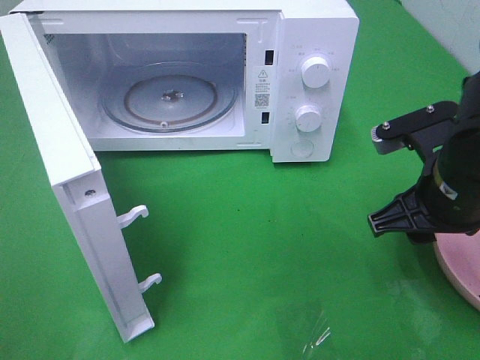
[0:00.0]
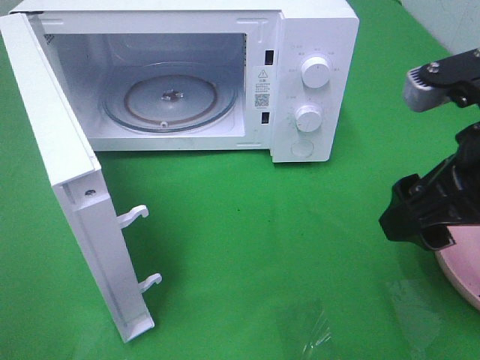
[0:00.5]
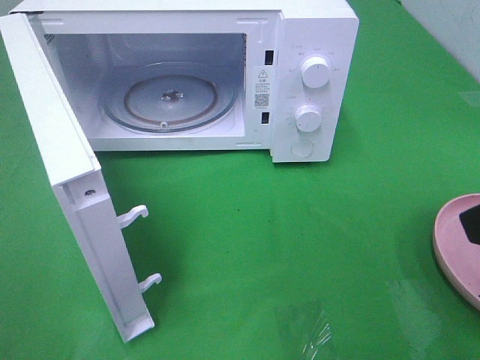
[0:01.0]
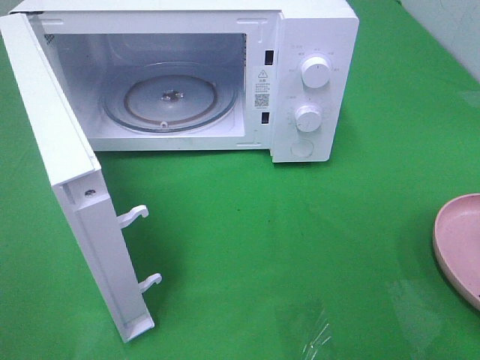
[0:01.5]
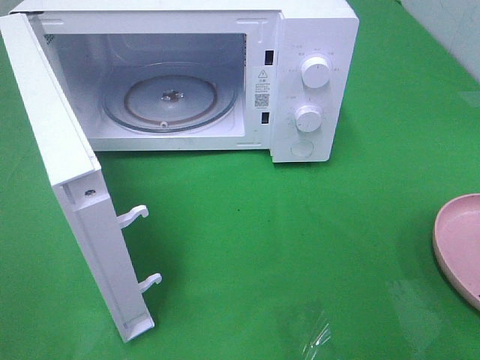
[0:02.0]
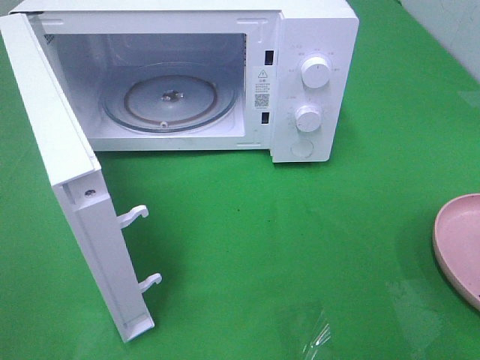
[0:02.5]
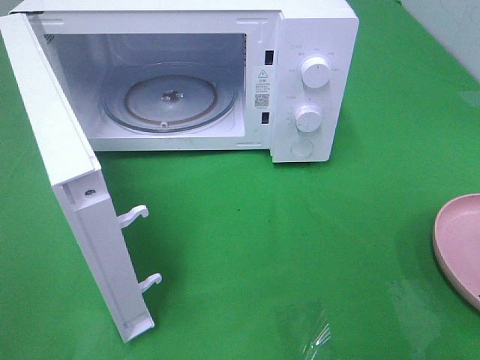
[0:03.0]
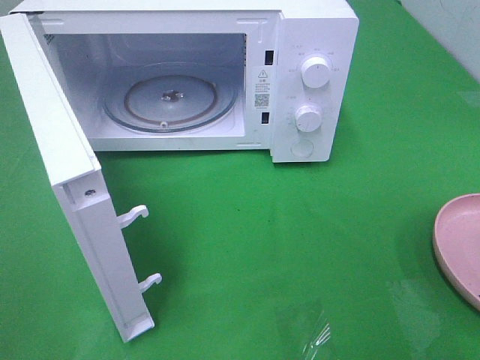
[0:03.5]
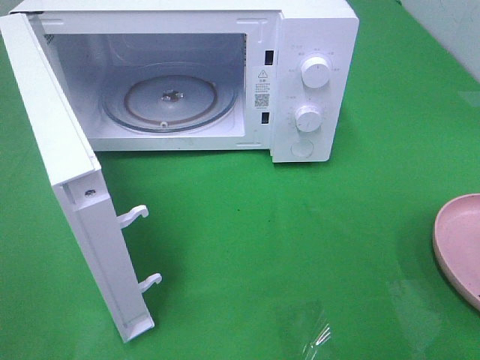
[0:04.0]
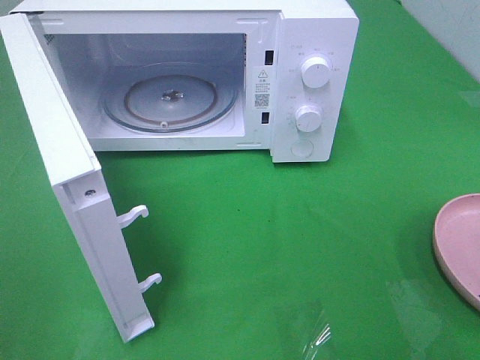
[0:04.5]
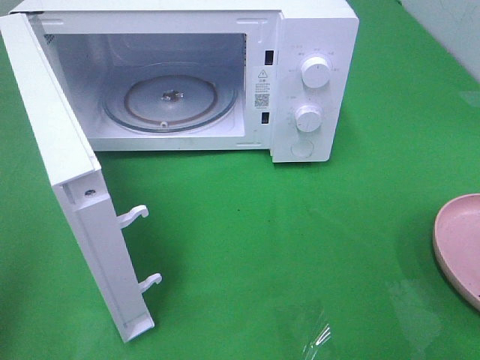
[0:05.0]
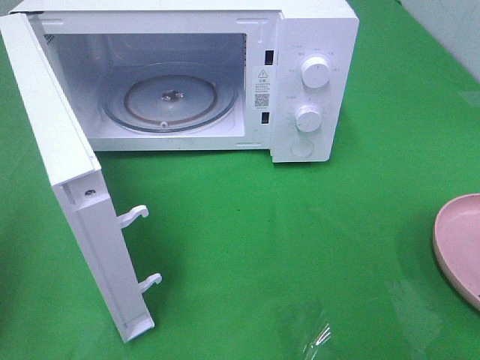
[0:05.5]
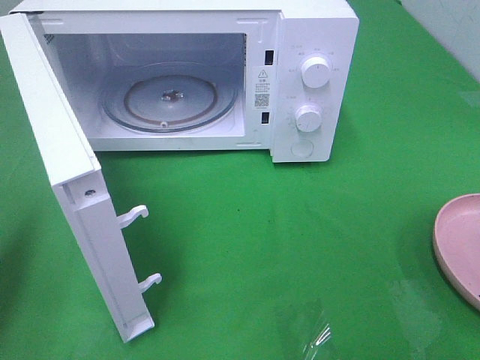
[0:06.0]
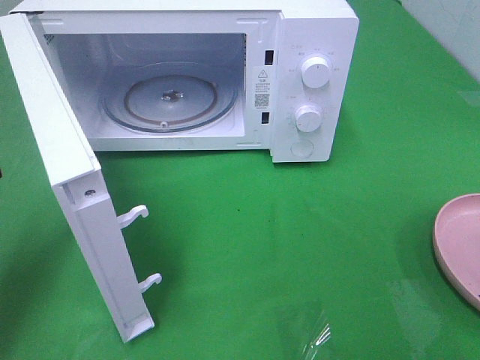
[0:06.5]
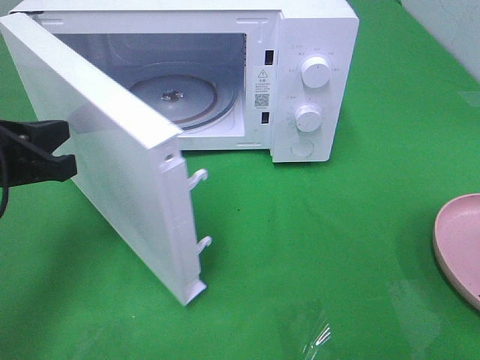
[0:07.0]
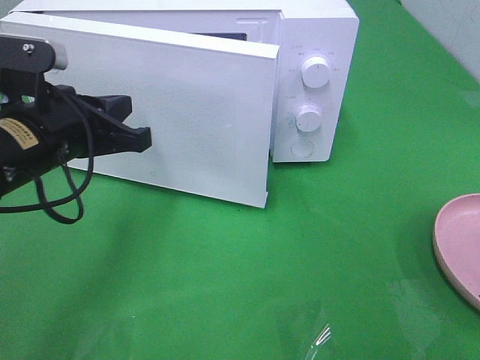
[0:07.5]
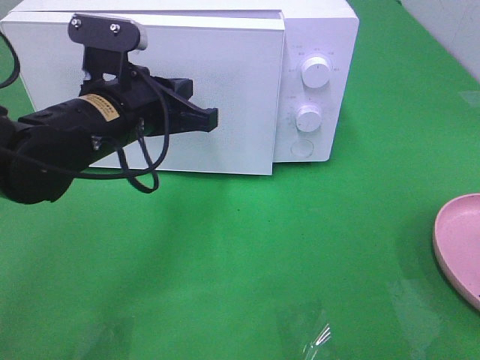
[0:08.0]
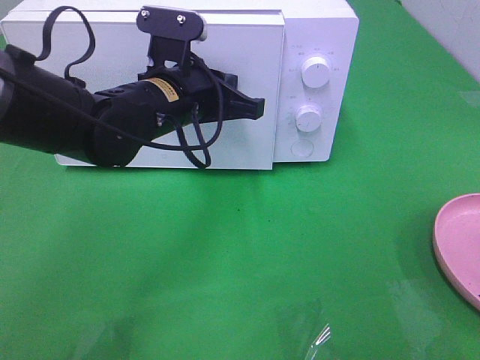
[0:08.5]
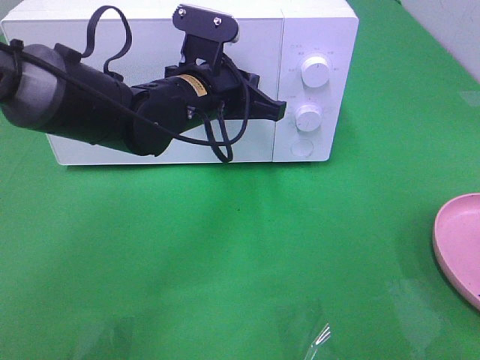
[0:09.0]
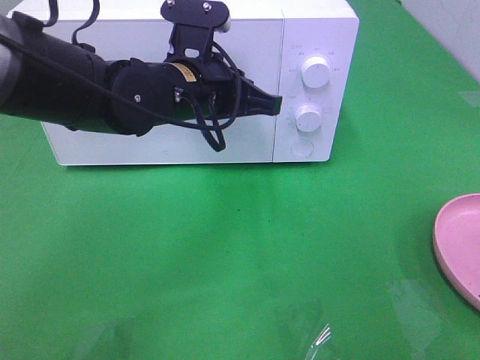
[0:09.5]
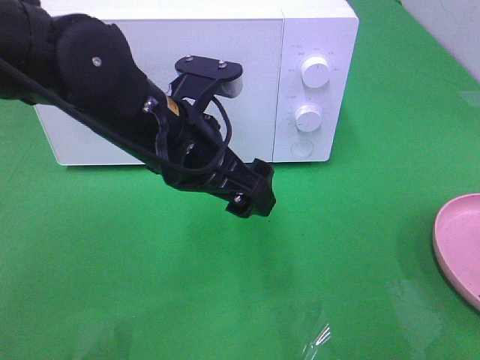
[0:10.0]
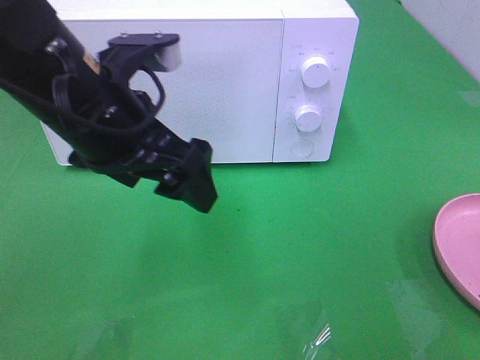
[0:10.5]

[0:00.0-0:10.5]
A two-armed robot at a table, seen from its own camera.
Task of the whole recording: Heat the burger.
Step, 0:00.5 to 0:09.5: Left hand: close the microwave door.
0:00.0 to 0:02.0: The right gripper is displaced backward, upward and to the right by roughly 25 cm.
0:04.0 to 0:06.5: The left gripper travels forward and downward by approximately 25 cm, and closes.
0:06.5 to 0:08.5: The left gripper heads to the right and forward, covering about 25 cm.
0:08.5 to 0:10.5: The left gripper heads backward, upward and to the left, covering about 10 cm, and opens.

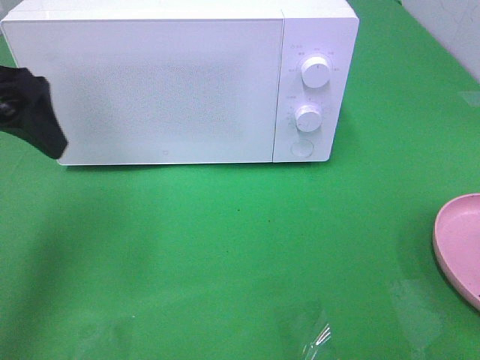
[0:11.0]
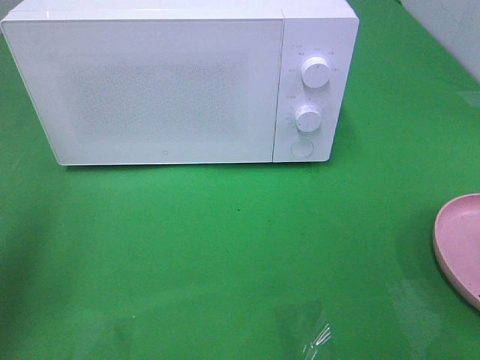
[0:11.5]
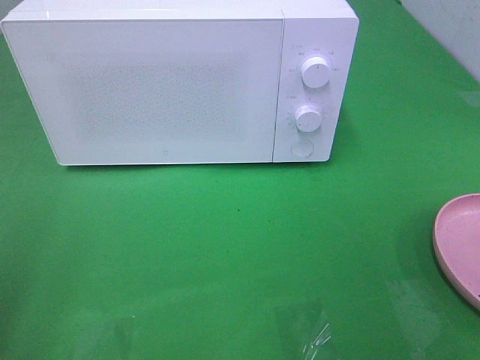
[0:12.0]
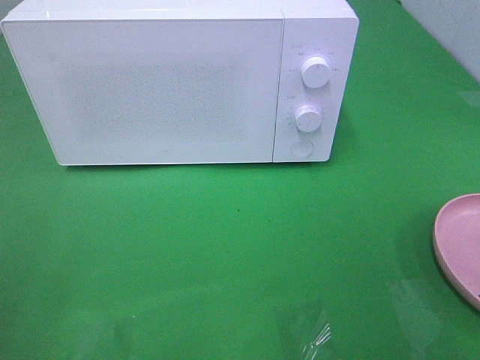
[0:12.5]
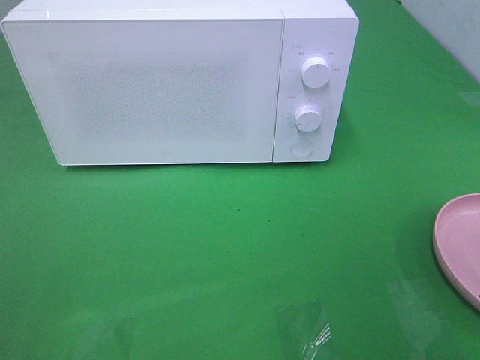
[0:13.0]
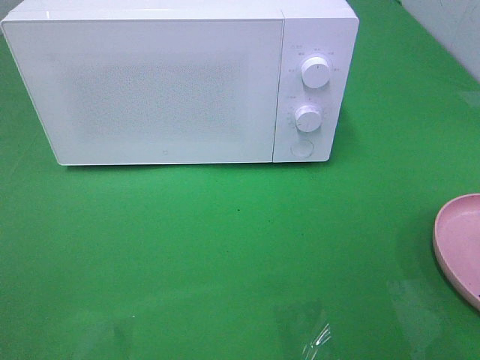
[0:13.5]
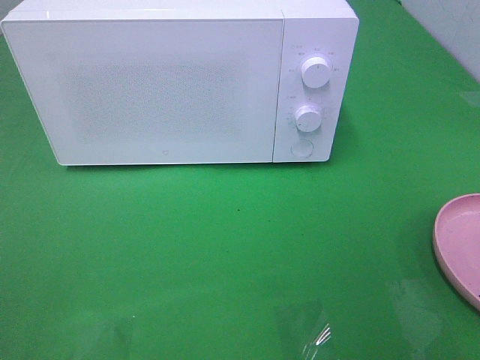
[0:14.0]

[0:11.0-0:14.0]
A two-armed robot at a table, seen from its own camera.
Task of the whole recording: Heat the burger.
0:11.0 to 0:12.5: The left gripper heads backward, covering roughly 20 cm.

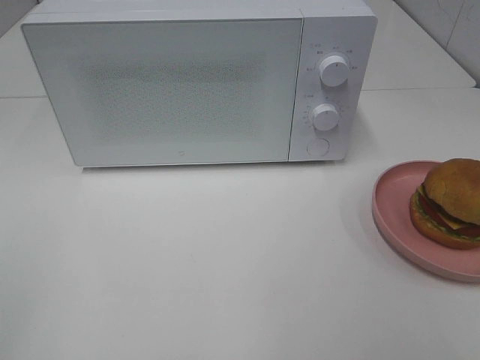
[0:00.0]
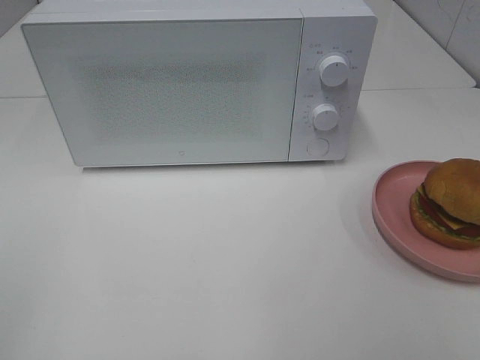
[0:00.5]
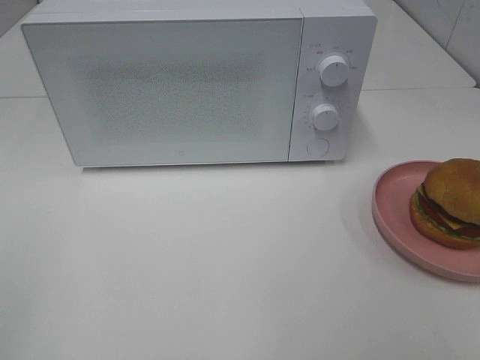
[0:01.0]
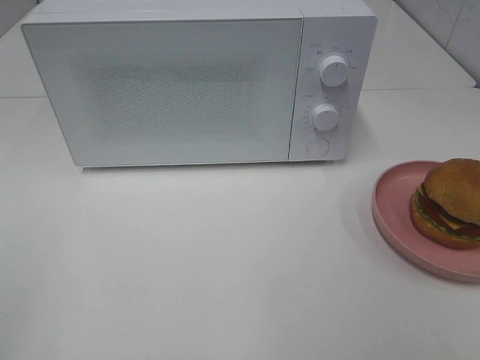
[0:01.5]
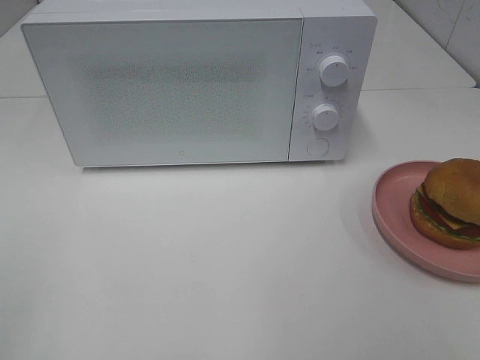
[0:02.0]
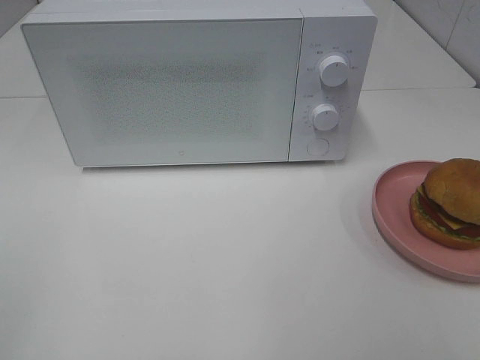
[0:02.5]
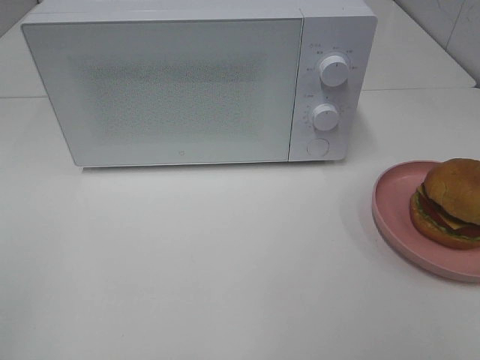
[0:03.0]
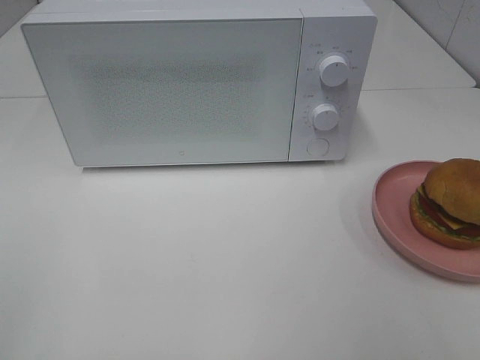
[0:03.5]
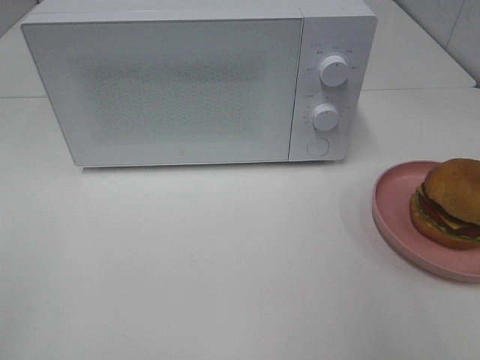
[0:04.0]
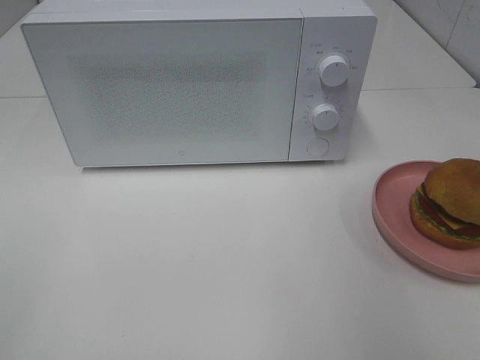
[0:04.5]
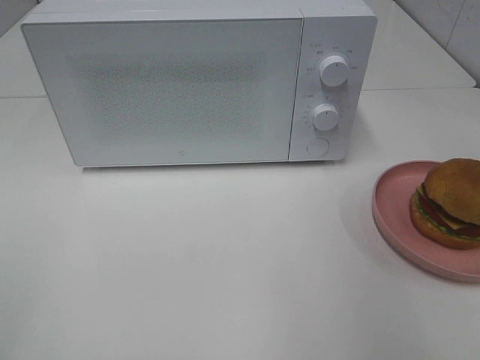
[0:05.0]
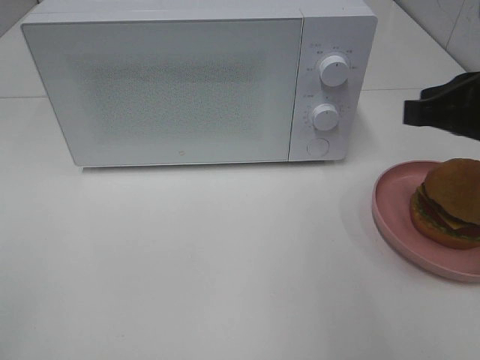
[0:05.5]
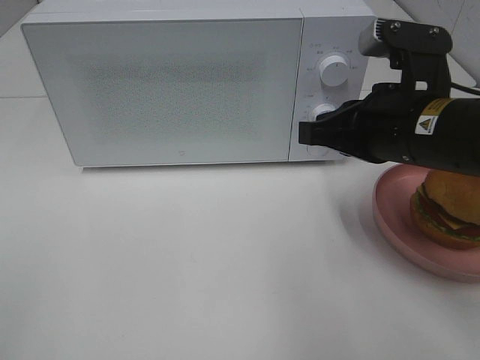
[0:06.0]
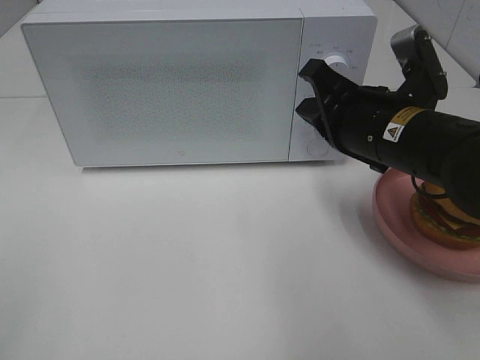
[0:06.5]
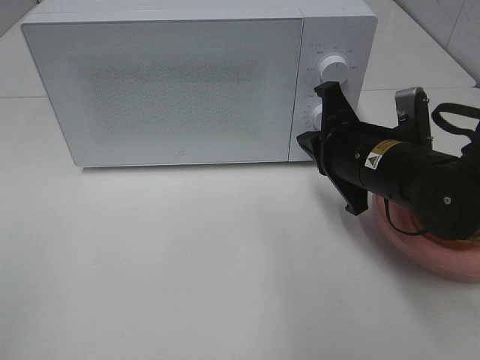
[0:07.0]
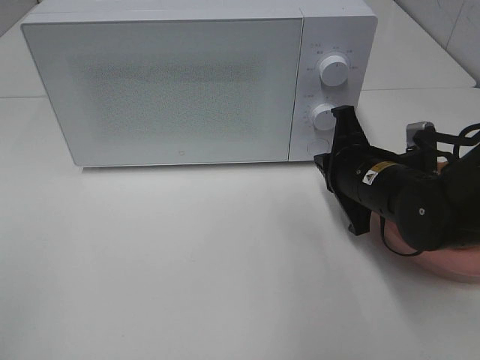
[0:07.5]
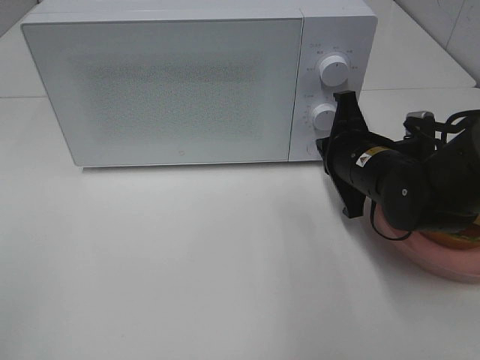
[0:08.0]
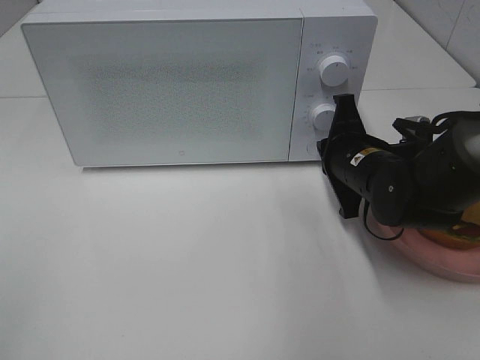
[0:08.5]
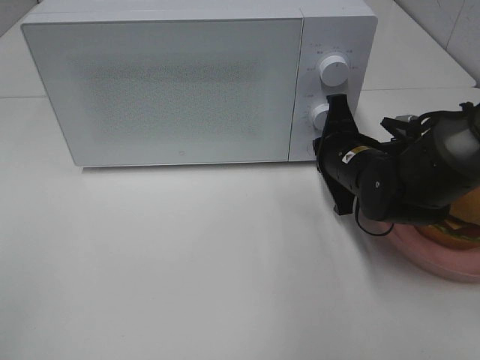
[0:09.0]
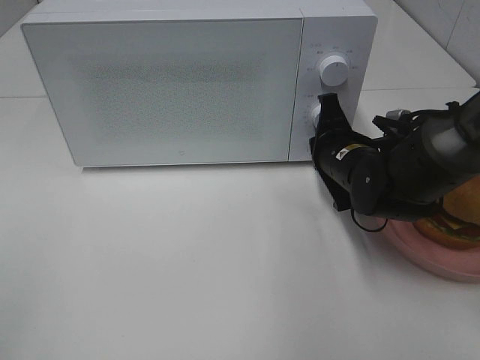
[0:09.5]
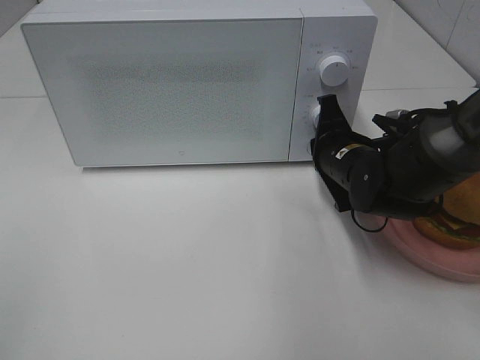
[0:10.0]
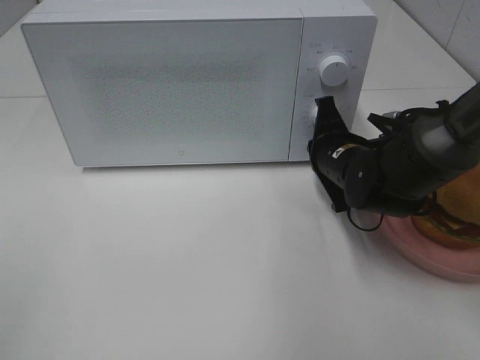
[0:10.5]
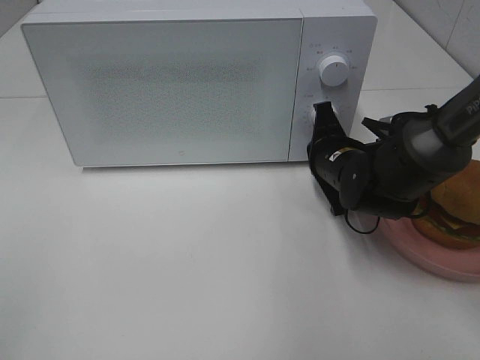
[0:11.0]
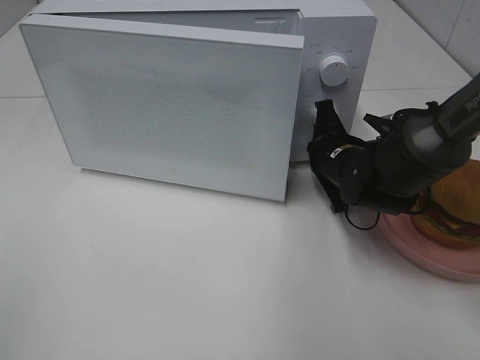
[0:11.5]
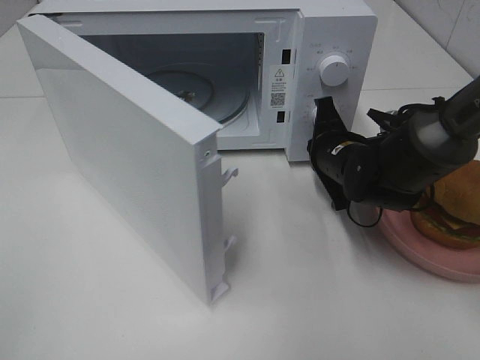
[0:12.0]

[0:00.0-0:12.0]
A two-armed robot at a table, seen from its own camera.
Task of the whole recording: Heat the burger.
0:00.0 to 0:02.0: The two grippers keep their place.
0:04.0 to 0:06.0: The right gripper travels to the left, forward and downward by about 20 cm, and closes up.
0:06.0 to 0:08.0: The right gripper goes about 10 cm downward and forward.
0:08.0 to 0:10.0: The grippers stay close to where they were, moving slightly.
